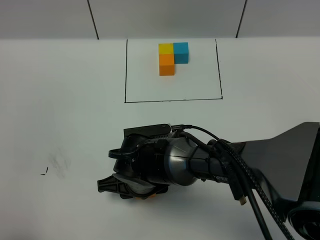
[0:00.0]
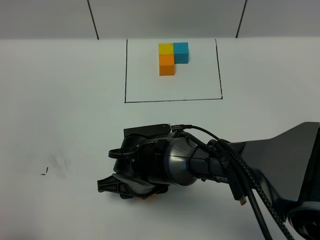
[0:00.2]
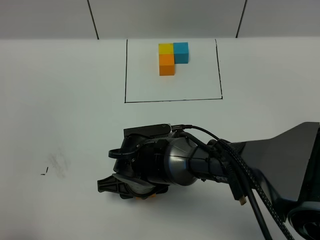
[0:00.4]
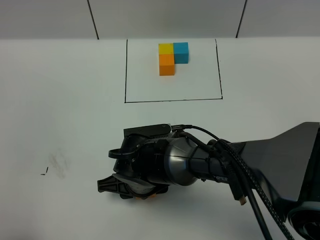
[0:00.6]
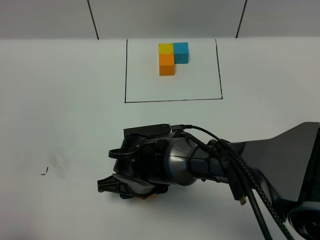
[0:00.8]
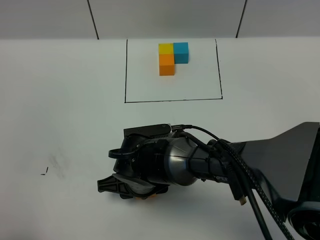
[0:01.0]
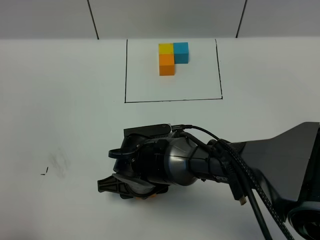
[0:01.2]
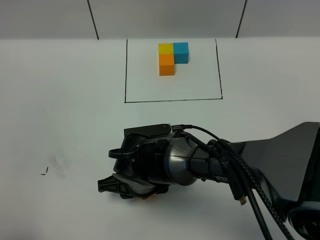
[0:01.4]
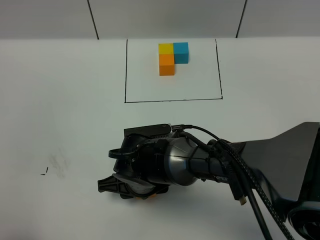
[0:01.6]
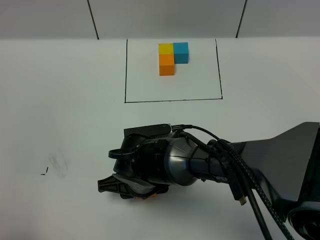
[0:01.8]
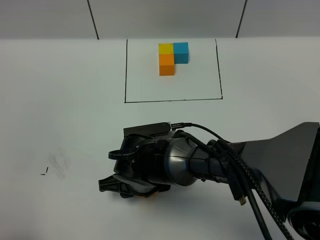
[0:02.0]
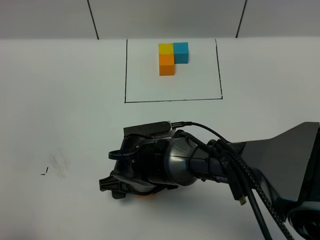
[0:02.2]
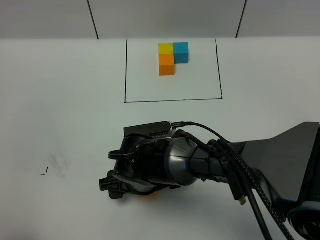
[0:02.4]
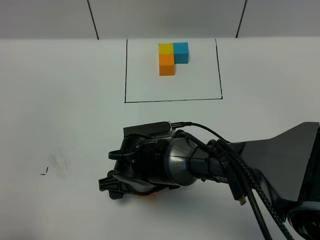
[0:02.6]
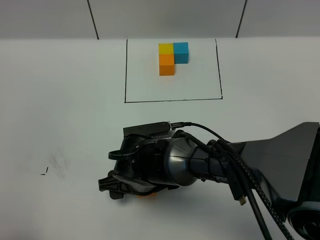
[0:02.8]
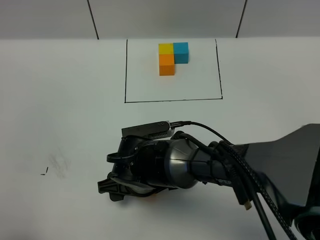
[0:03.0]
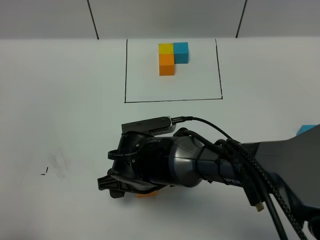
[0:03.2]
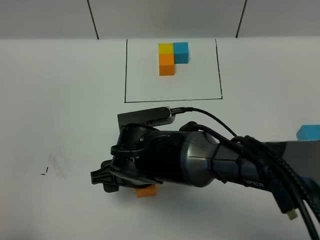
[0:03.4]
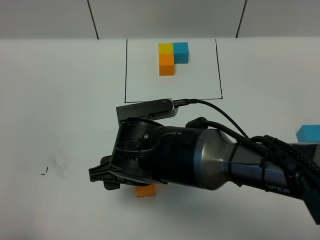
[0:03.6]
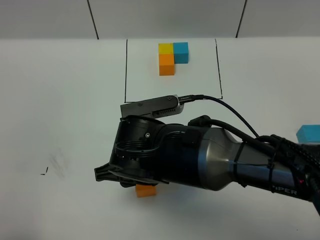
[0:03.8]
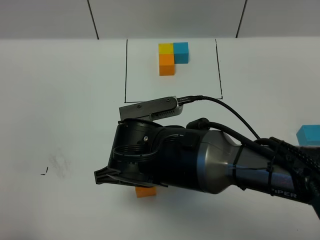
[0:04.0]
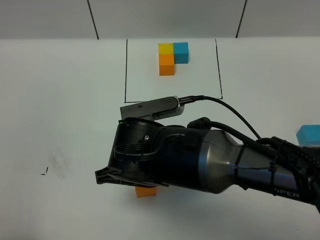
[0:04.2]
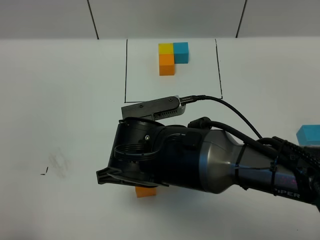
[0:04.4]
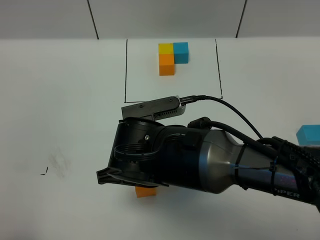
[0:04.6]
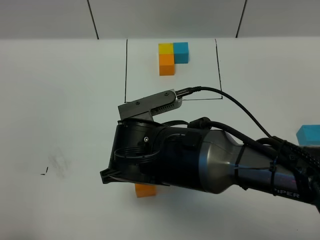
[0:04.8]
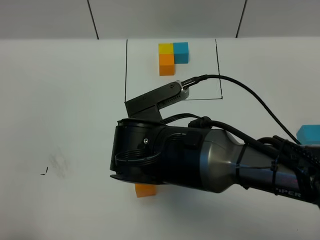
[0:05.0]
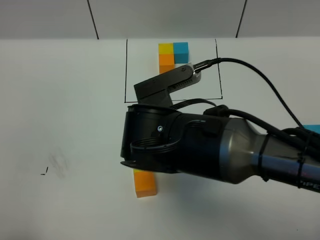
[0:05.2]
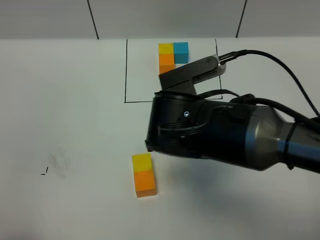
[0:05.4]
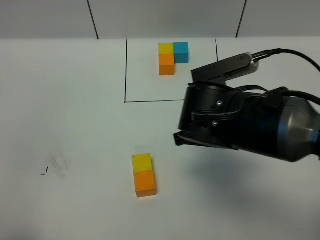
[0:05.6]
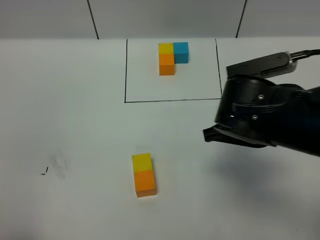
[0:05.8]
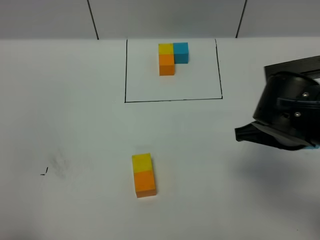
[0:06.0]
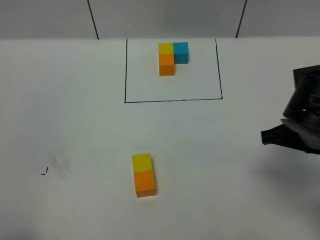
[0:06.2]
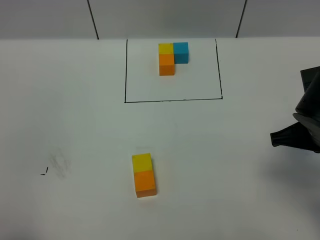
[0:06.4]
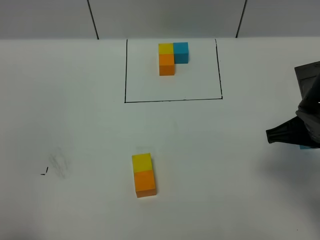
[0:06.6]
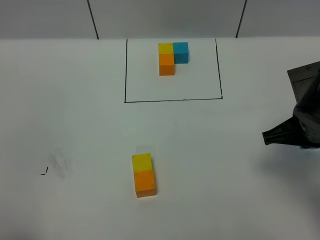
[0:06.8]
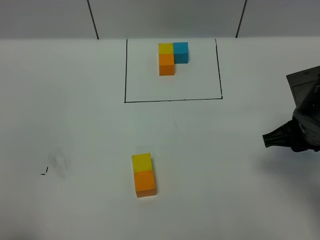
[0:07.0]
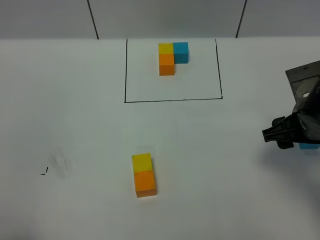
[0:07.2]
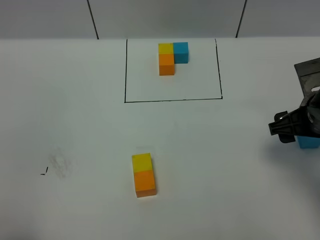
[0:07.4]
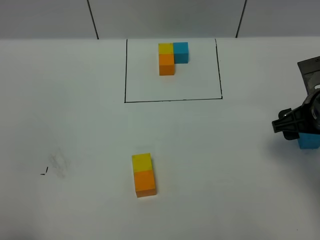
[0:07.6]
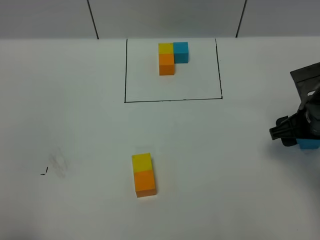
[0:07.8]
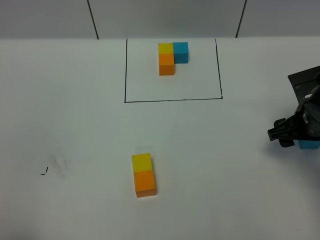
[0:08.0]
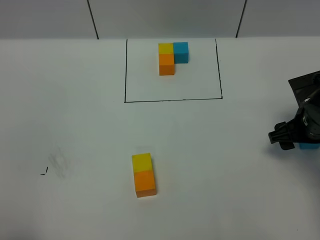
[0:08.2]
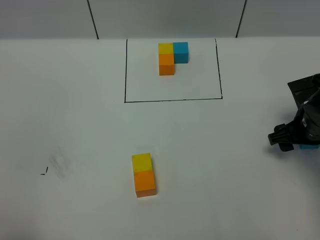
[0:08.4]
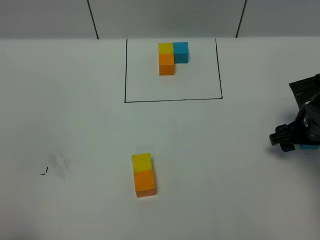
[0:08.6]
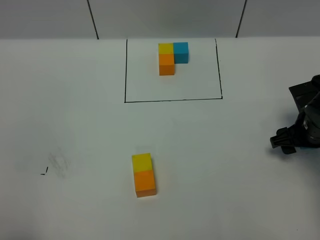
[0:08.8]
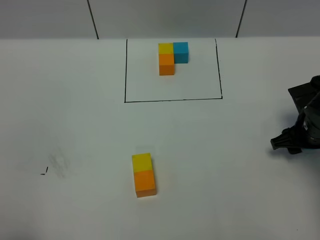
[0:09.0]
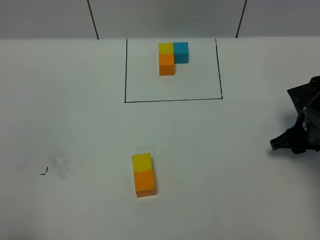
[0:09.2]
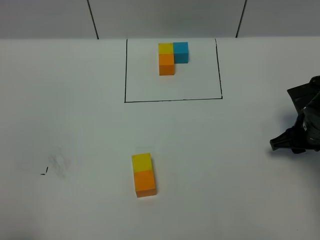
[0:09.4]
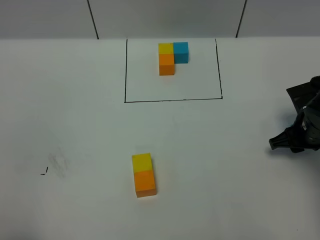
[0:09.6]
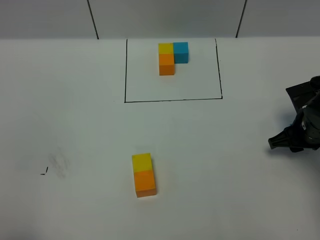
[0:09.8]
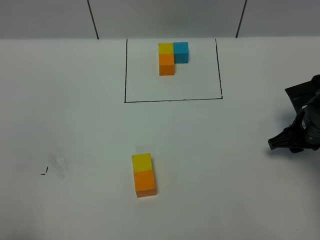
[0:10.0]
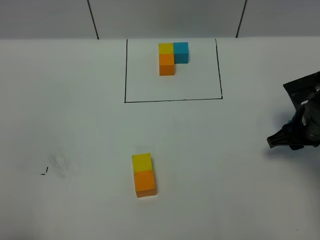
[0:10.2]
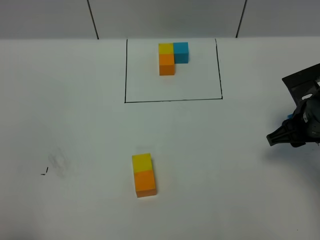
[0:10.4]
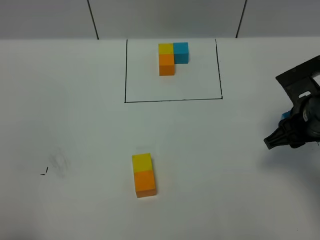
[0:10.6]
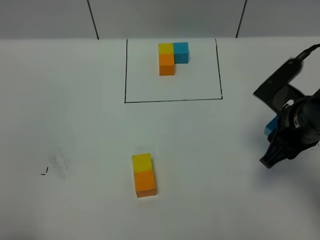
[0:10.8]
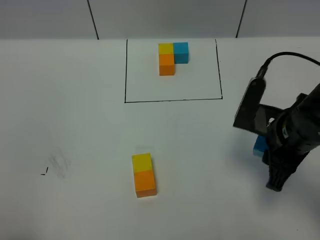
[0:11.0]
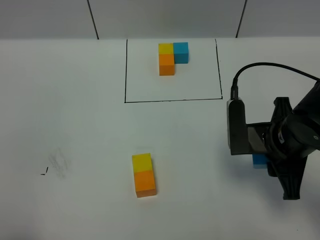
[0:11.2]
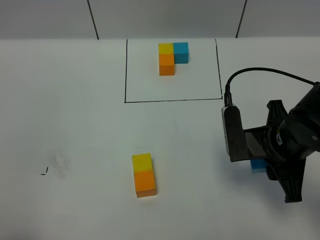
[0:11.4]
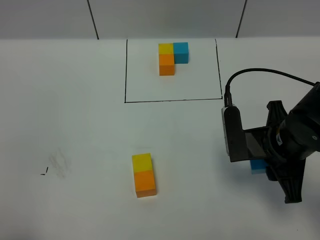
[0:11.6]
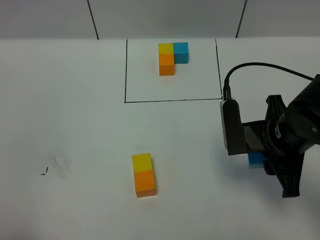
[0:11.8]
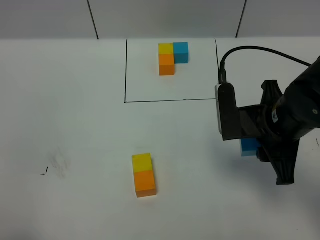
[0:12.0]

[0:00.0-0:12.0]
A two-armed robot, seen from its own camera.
Task of the whole recording: According to the building block template in front, assemble the scattered blocks together.
0:00.0 to 0:01.6: Neither gripper changes place.
0:01.6 to 0:03.0: The right gripper opens.
0:03.0 to 0:04.4: The right gripper travels upward by approximately 10 cm, and closes.
0:04.4 to 0:06.0: The right gripper shifts approximately 20 cm to the right.
0:06.0 to 0:07.6: The right gripper goes approximately 10 cm to the right, and opens its fingers.
0:07.6 to 0:09.0: The right gripper is displaced downward by some 10 cm.
0:09.0 to 0:10.4: The right gripper goes some 5 cm upward.
0:10.4 to 0:12.0: The right gripper goes roughly 10 cm to the left and upward.

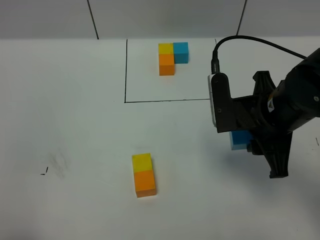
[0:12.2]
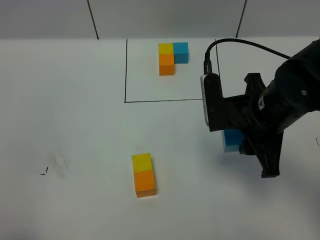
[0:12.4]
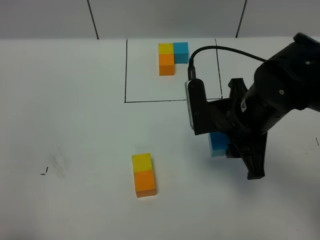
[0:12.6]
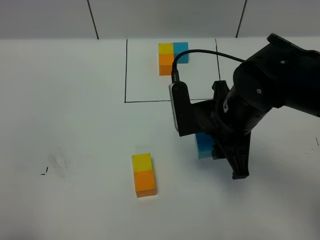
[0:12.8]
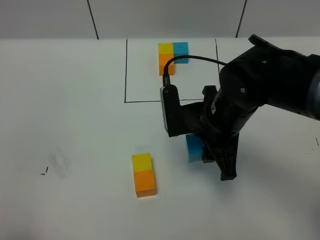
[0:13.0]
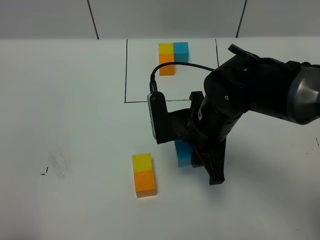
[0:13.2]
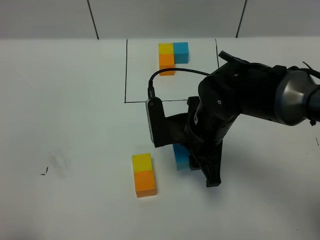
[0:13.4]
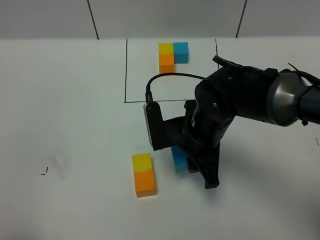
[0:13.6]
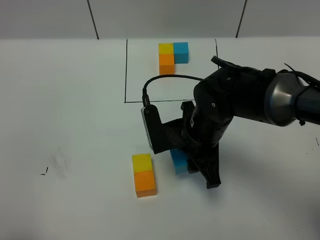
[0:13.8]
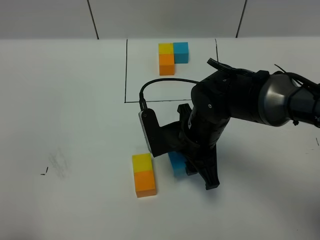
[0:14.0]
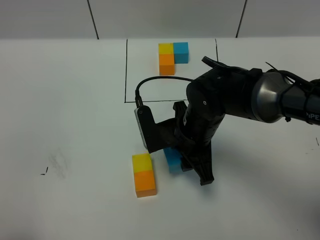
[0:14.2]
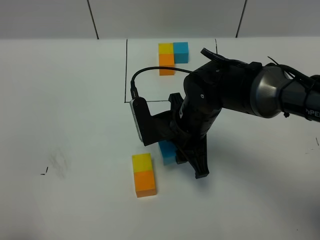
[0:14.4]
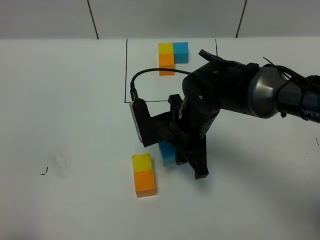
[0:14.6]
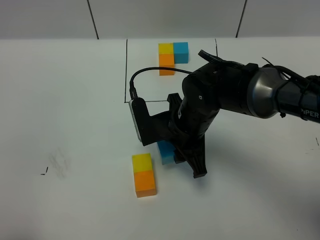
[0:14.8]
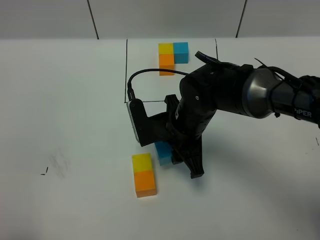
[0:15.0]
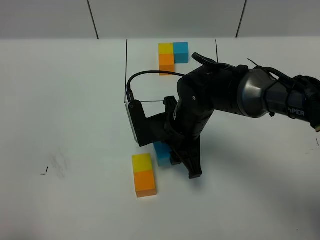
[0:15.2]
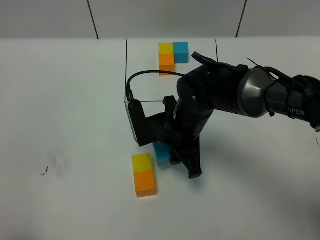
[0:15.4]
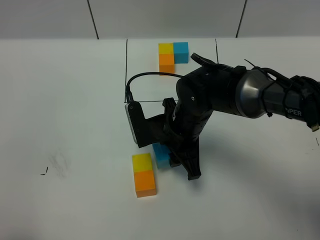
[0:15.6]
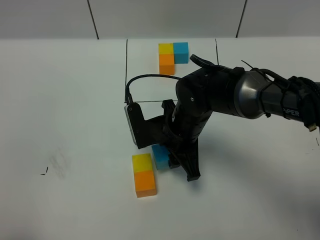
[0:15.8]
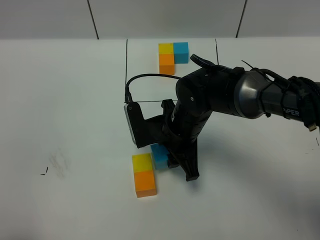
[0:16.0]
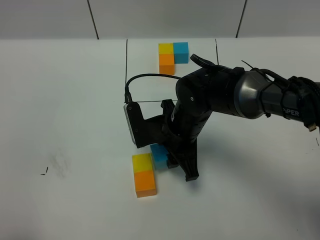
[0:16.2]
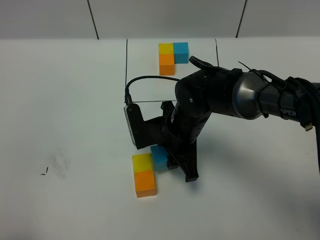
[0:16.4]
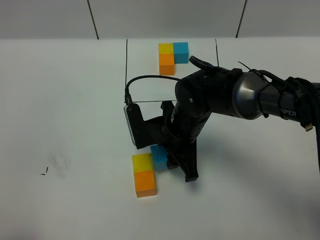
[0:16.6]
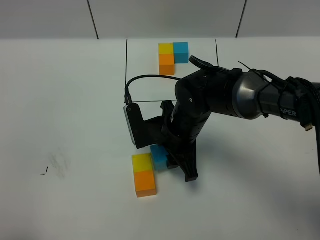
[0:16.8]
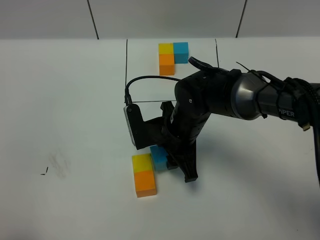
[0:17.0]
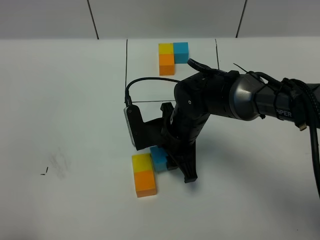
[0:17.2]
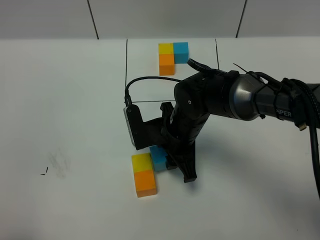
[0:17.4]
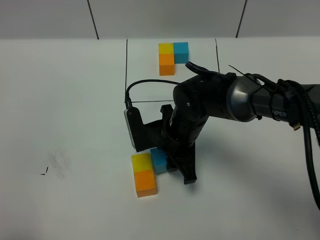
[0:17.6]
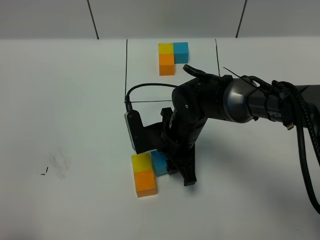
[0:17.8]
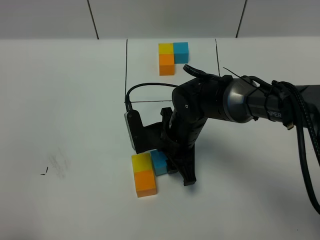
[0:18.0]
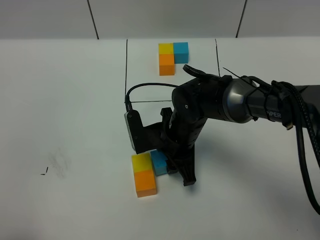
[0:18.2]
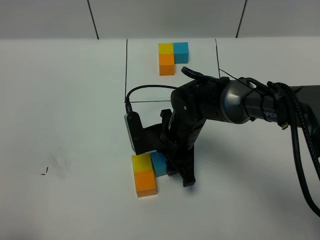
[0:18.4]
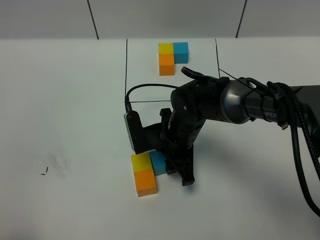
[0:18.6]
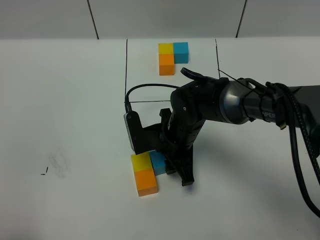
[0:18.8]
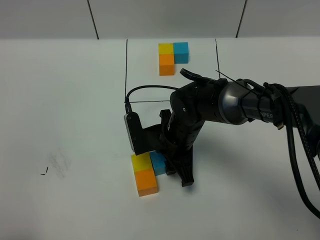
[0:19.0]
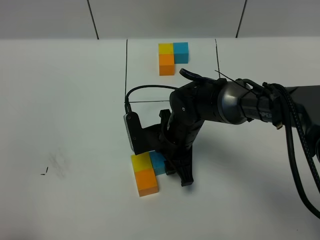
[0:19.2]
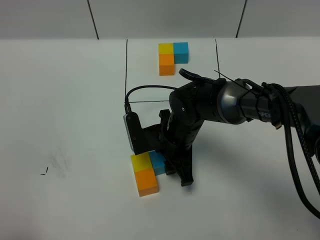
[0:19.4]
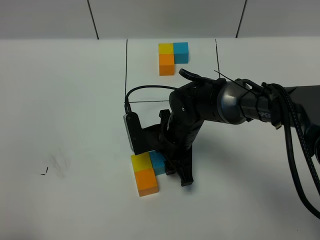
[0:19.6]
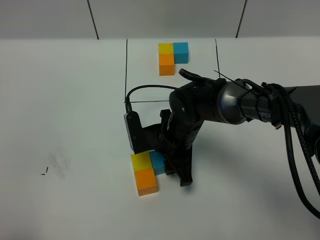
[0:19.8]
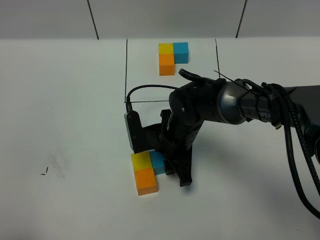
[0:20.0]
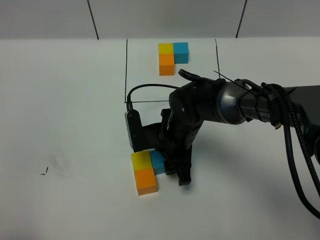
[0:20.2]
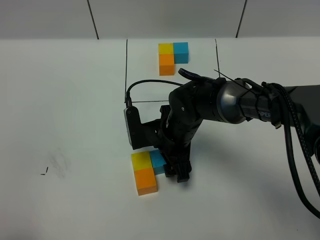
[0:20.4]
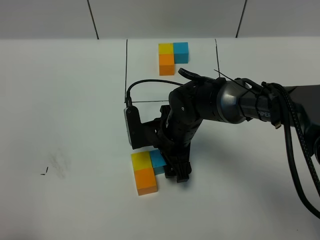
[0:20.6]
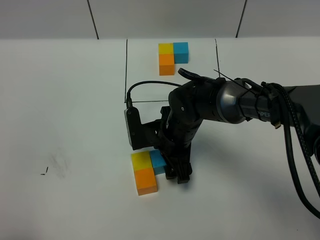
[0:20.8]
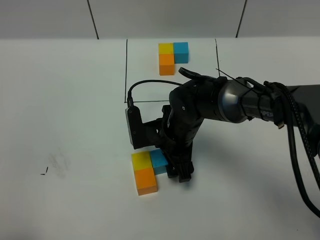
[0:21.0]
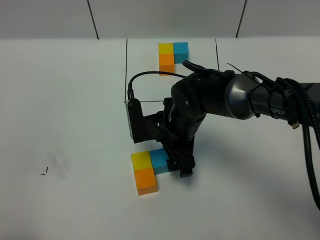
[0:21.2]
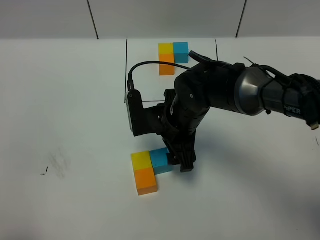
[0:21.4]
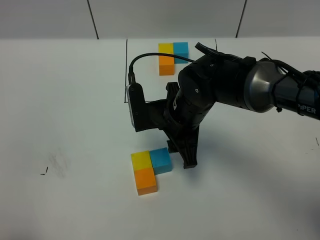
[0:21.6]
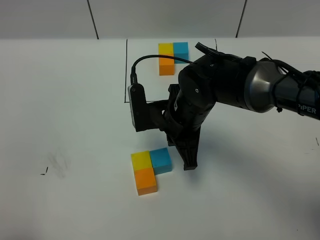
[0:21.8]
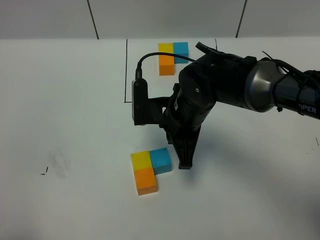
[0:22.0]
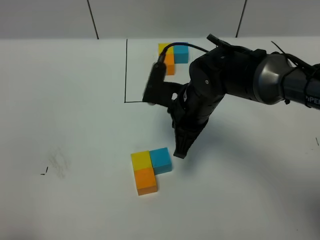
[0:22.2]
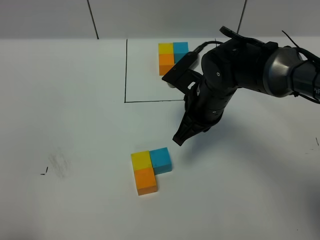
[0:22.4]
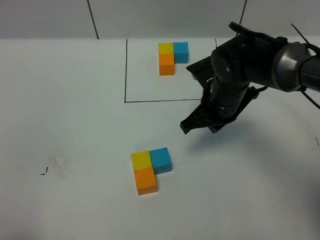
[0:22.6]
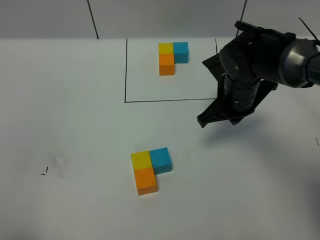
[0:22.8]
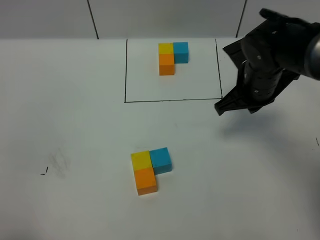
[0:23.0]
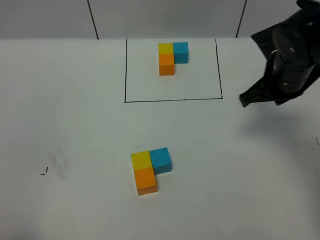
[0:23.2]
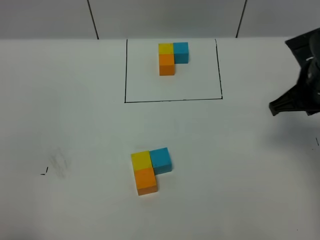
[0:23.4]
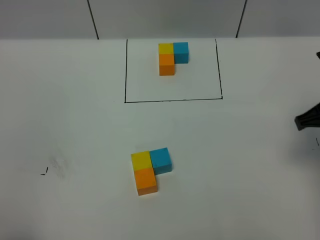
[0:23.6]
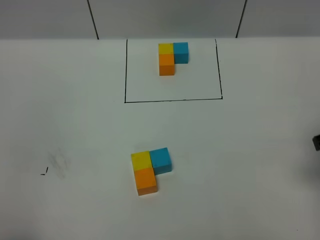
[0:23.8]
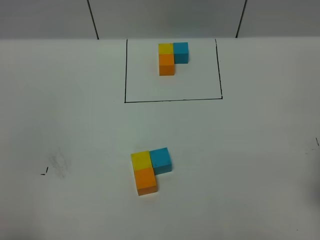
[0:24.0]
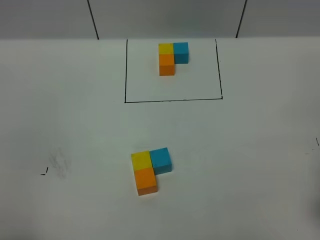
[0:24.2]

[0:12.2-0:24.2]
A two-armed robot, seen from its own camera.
Task of the whole recording: According to the building block template in front, assemble the scattered blocks together.
Step, 0:12.2 to 0:20.2: Put the blue cube on the right of the yellow cube.
0:12.2 to 0:13.8: The right gripper moves to the left and downward, some 10 cm.
0:13.8 to 0:15.2: There are only small adjustments of the grippers.
0:15.2 to 0:16.6: Both grippers stay about where they are.
0:16.6 to 0:18.2: The grippers stay close to where they were, moving slightly.
0:18.2 to 0:19.8: Both grippers stay about where they are.
0:19.8 to 0:21.2: The right gripper opens.
0:21.2 to 0:22.6: The right gripper goes some 10 cm to the right, and closes up.
0:22.6 to 0:24.2: The right gripper goes some 30 cm backward, to the right and upward.
